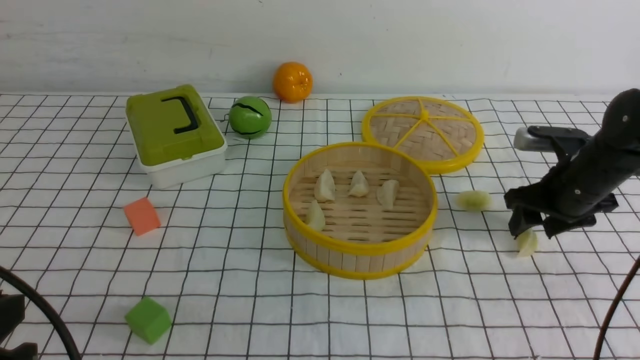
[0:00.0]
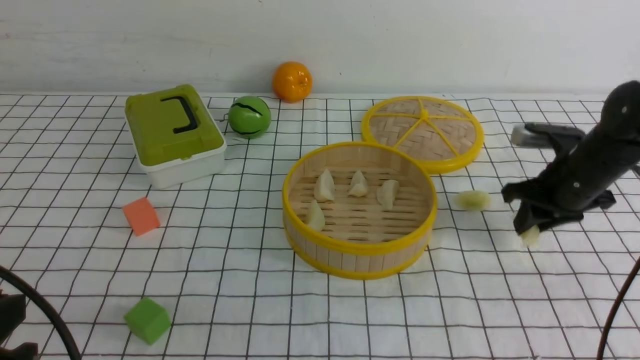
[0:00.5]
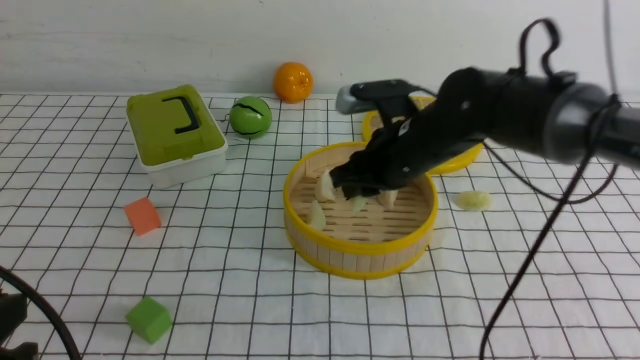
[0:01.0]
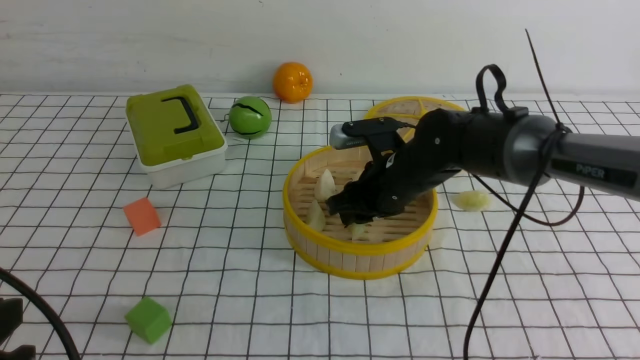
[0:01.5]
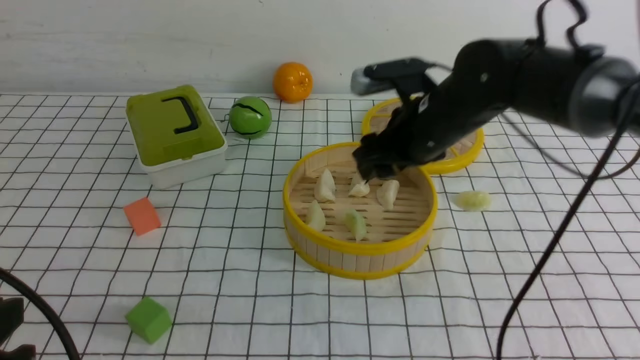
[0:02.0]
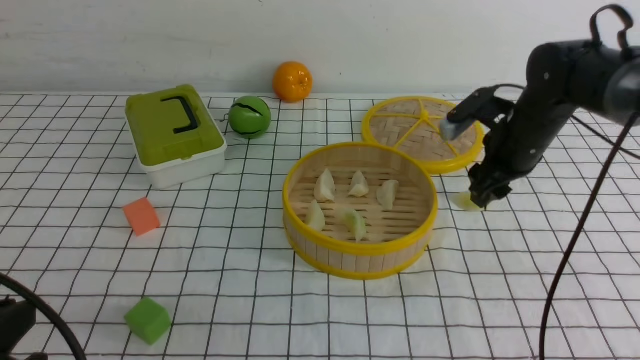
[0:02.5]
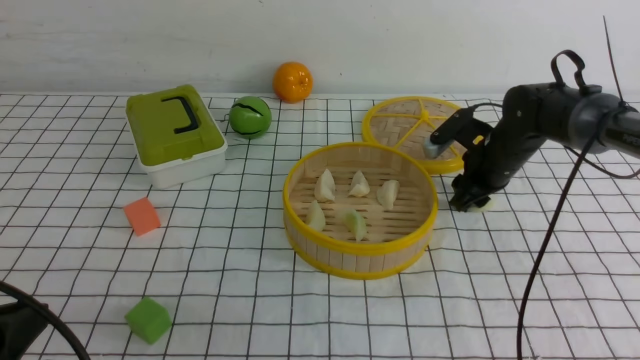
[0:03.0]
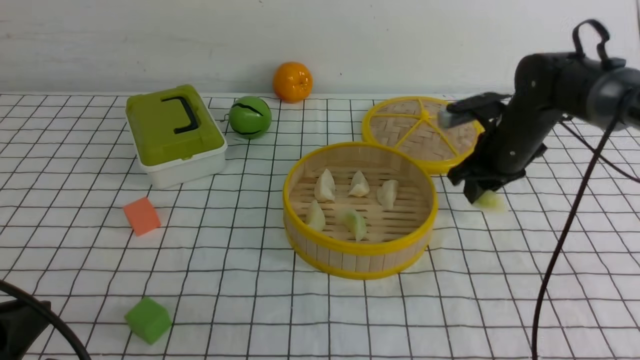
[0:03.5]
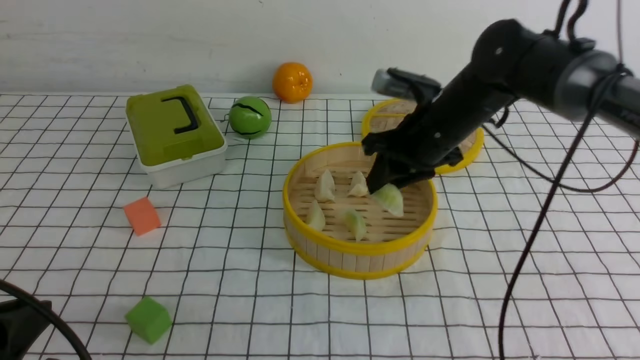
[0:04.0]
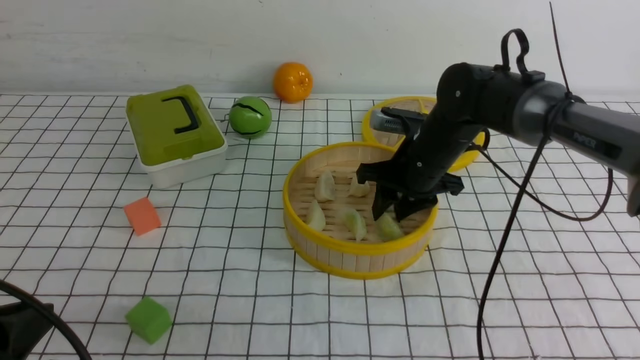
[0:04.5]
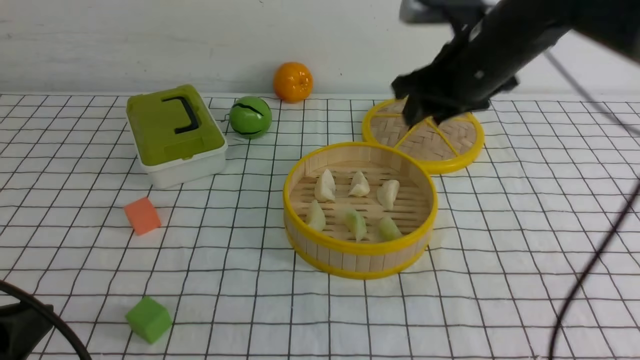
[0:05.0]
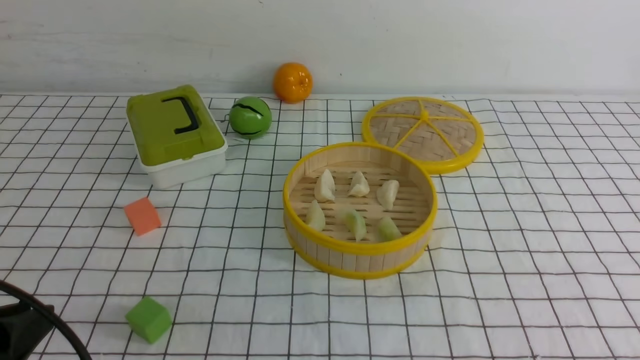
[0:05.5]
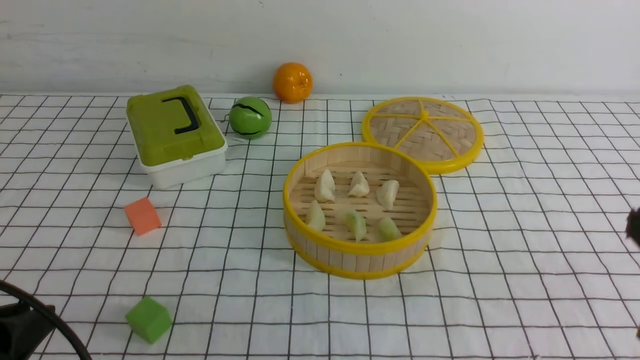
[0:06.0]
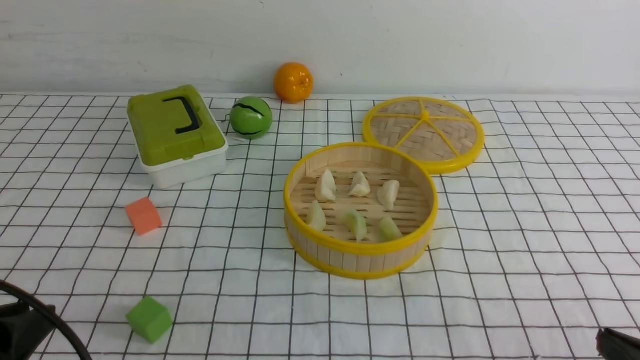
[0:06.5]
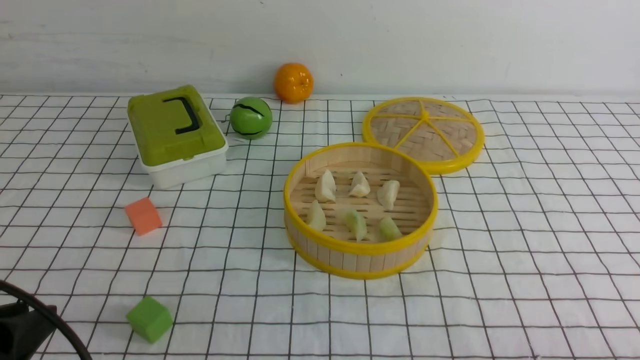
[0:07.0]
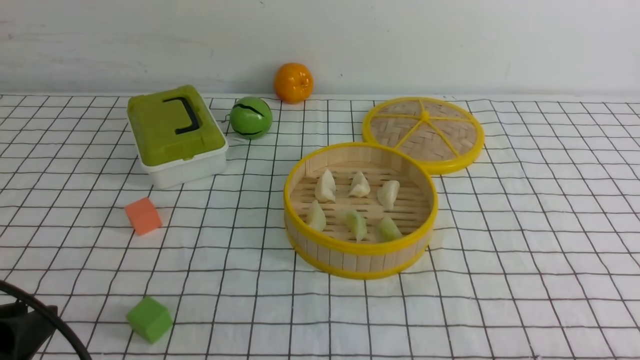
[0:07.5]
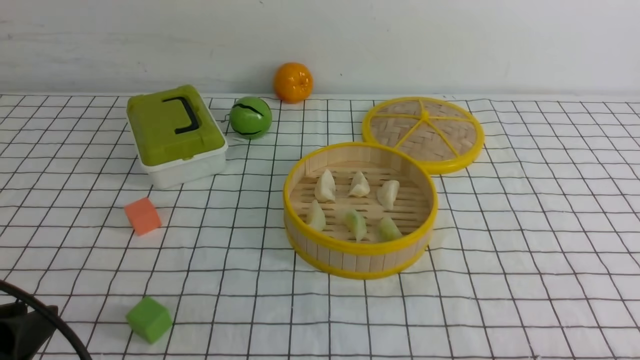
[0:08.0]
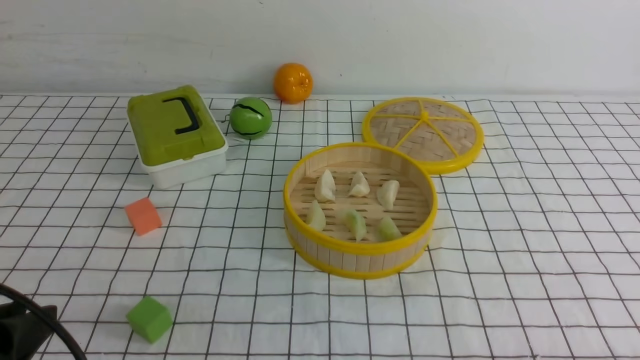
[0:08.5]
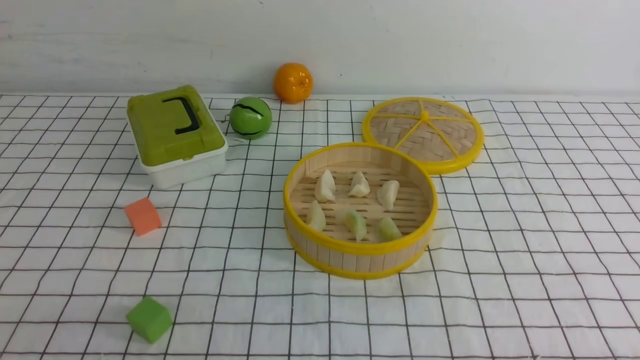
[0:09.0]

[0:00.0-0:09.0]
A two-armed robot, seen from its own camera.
Task of the whole recording: put the dumplings into the steamer on the table with the white tablecloth.
Step, 0:01.0 to 0:02.0: use the right arm to put the dumpling into the steamer.
Step, 0:02.5 to 0:03.0: use the right arm to grab a dumpling.
Step, 0:04.0 to 0:04.5: use the right arm to put the dumpling into the steamer.
0:00.0 to 0:02.0: The right gripper moves to the left and upward, approximately 20 cm, and closes, then reopens.
0:02.0 to 0:04.5: The right gripper travels downward by roughly 5 cm, and reaches some 10 cm to the right, then returns.
0:04.5 to 0:07.0: The right gripper goes roughly 40 cm backward and to the right, and closes up.
0:07.0 to 0:09.0: The left gripper ends up about 5 cm from where it was.

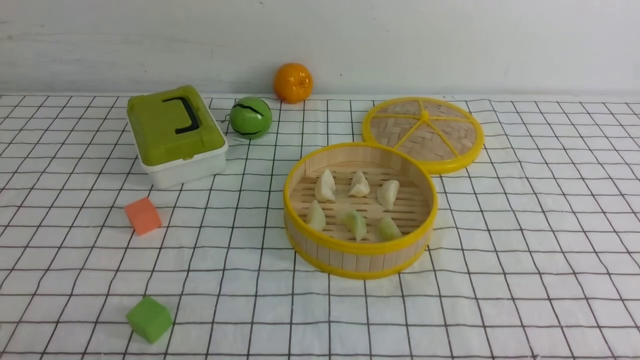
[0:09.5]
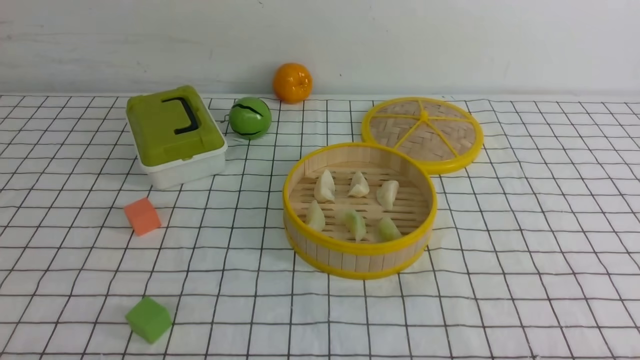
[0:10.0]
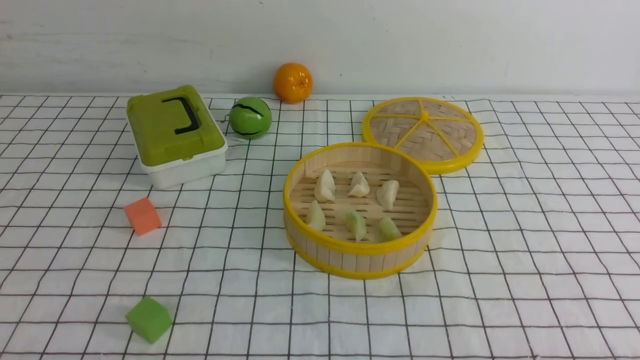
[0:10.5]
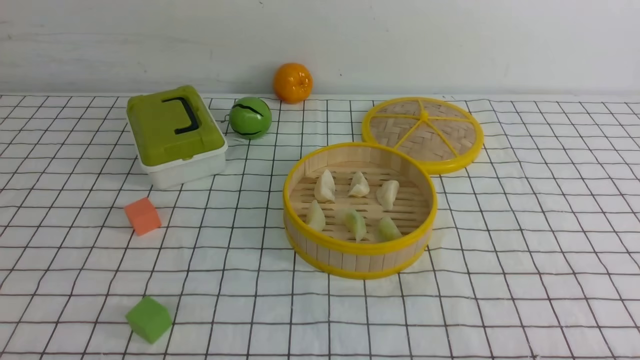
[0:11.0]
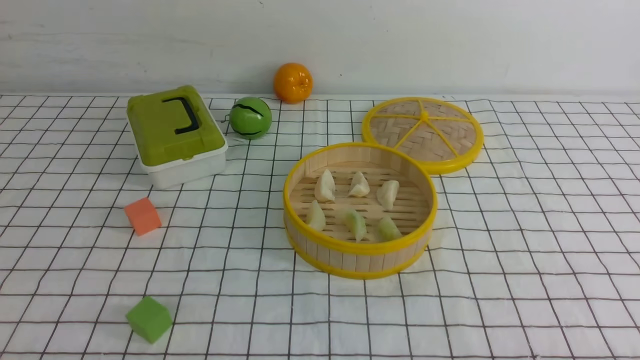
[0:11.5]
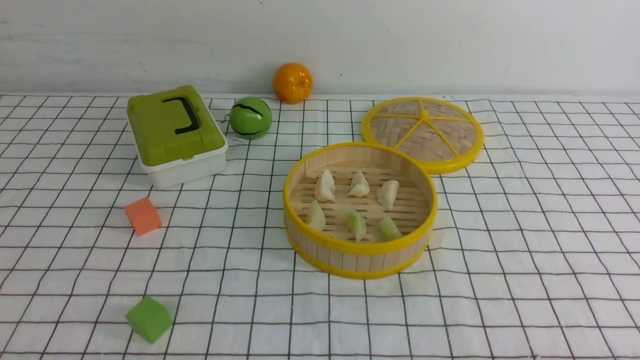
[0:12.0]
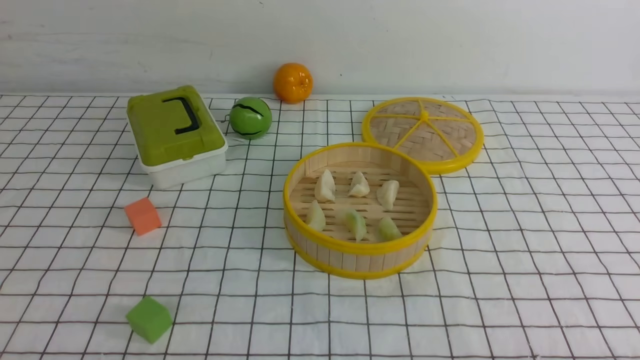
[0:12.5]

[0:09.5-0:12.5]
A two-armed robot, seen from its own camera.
Task of the whole recording: put the dumplings into the steamer on the table with the white tablecloth.
0:11.0 to 0:12.5: Both grippers stay put.
